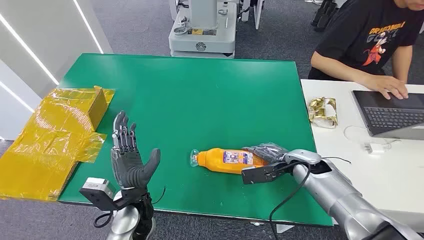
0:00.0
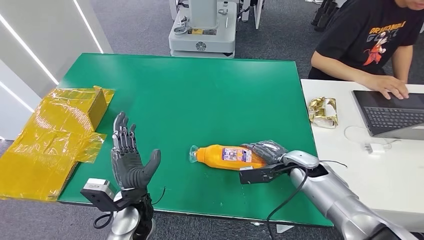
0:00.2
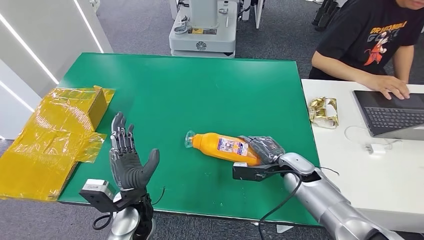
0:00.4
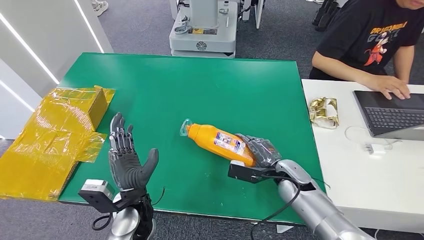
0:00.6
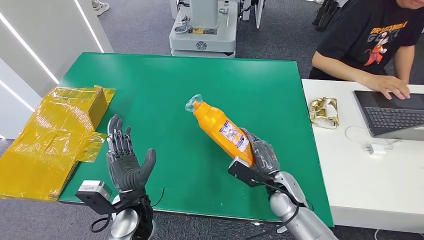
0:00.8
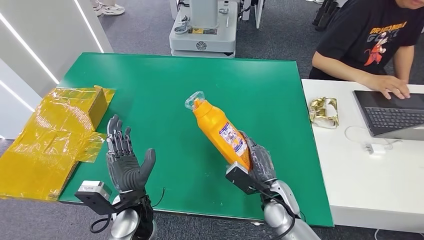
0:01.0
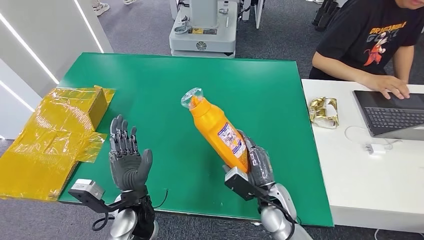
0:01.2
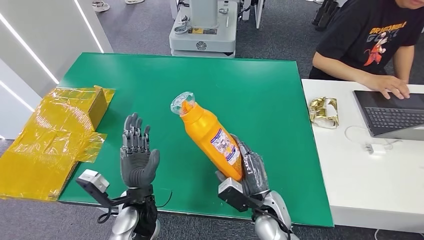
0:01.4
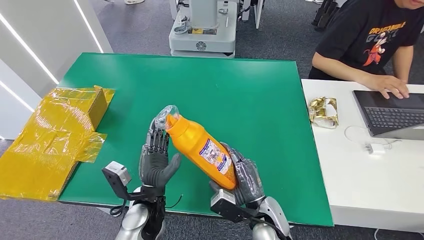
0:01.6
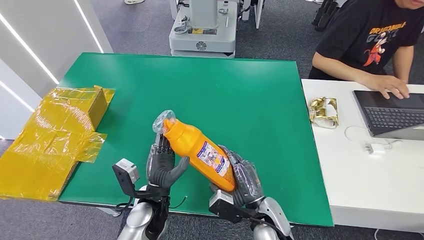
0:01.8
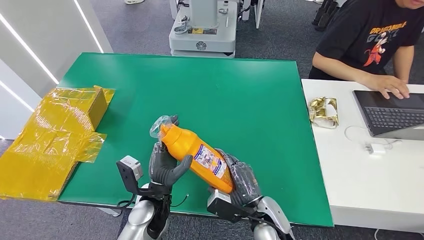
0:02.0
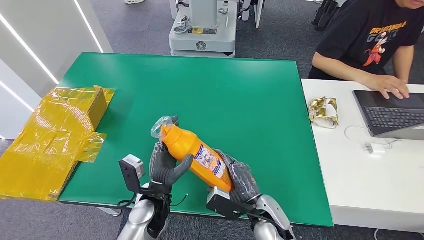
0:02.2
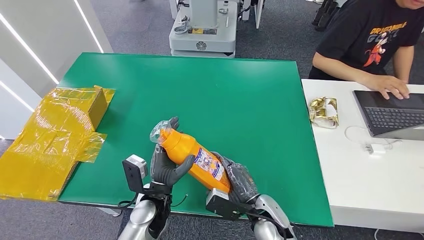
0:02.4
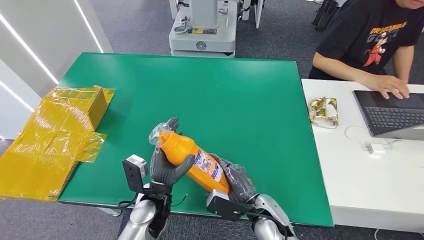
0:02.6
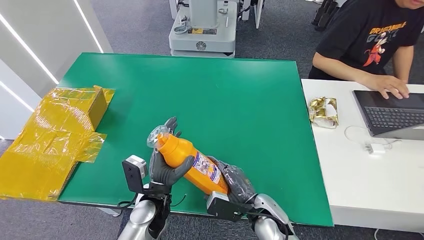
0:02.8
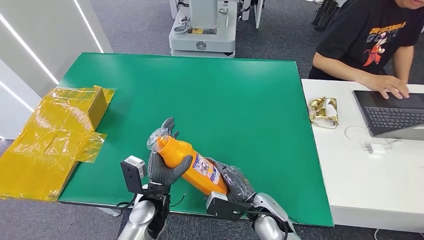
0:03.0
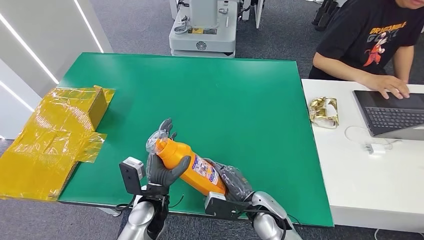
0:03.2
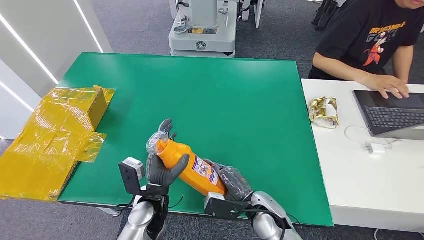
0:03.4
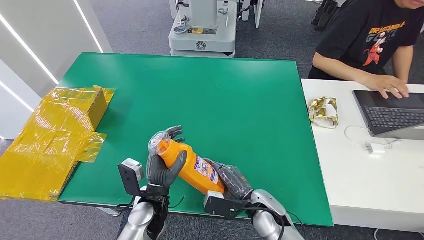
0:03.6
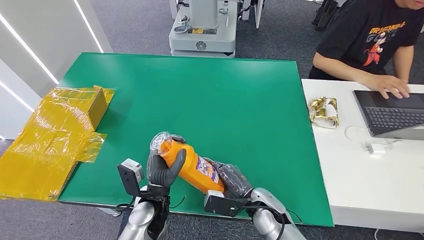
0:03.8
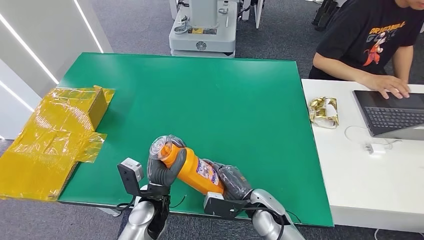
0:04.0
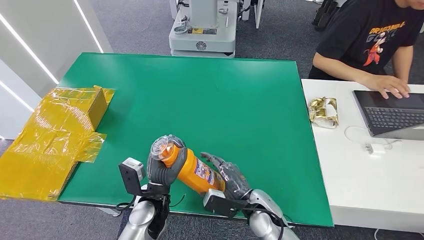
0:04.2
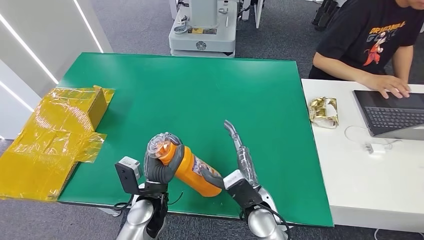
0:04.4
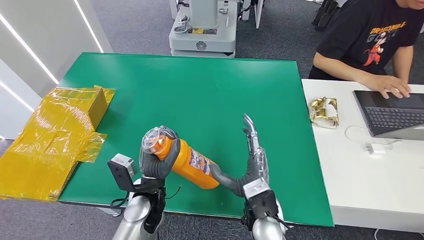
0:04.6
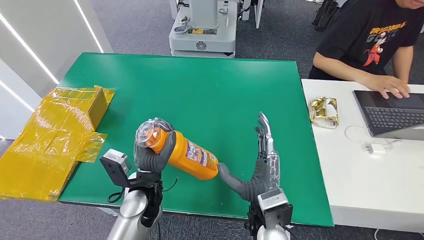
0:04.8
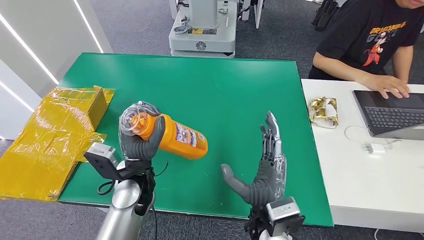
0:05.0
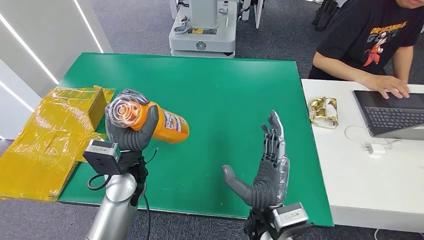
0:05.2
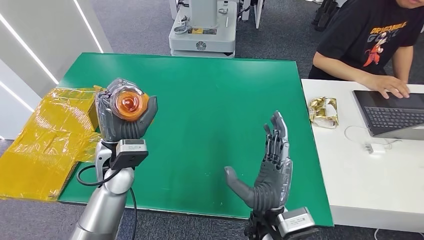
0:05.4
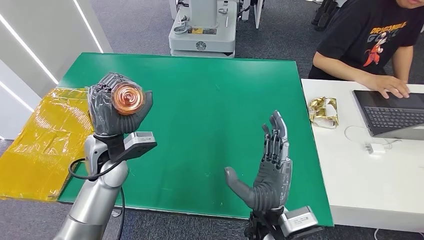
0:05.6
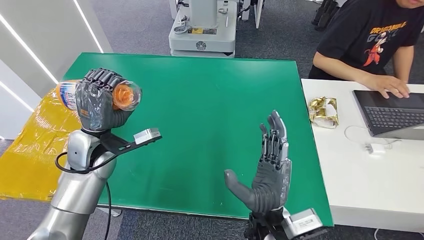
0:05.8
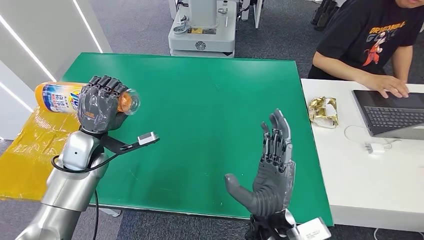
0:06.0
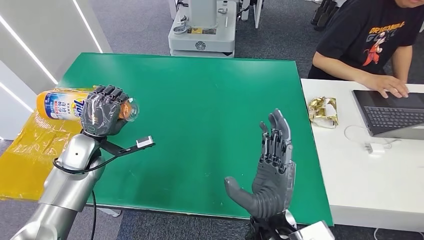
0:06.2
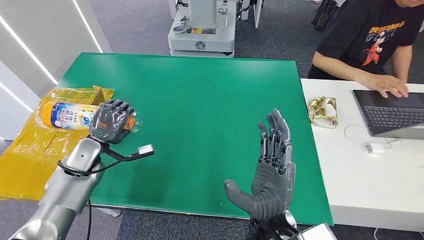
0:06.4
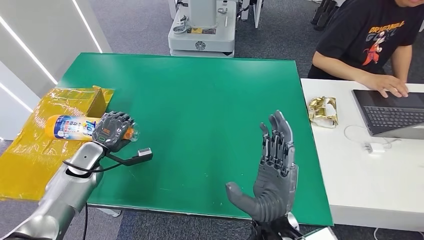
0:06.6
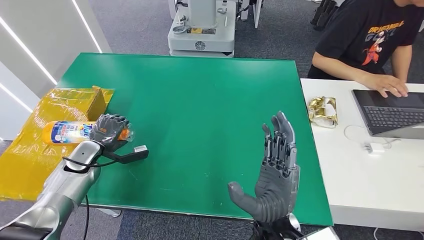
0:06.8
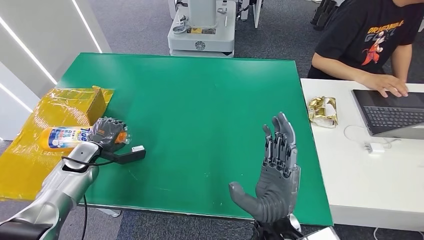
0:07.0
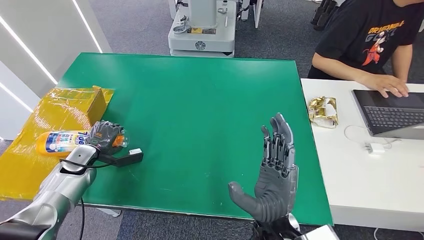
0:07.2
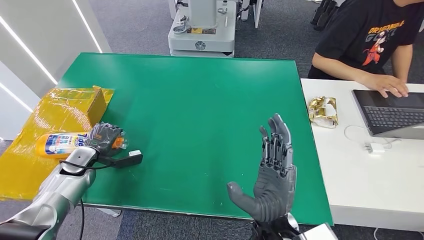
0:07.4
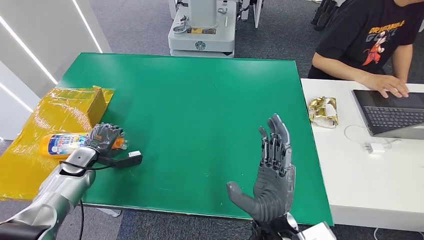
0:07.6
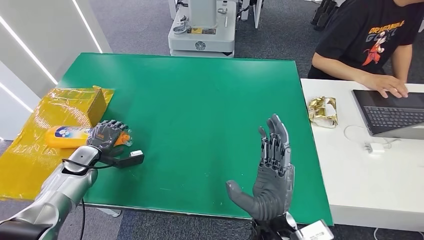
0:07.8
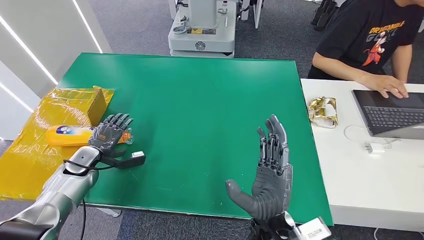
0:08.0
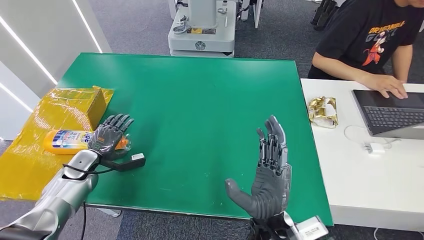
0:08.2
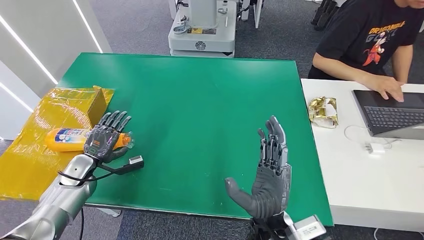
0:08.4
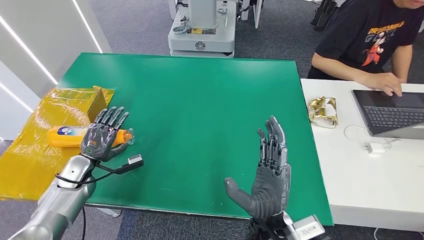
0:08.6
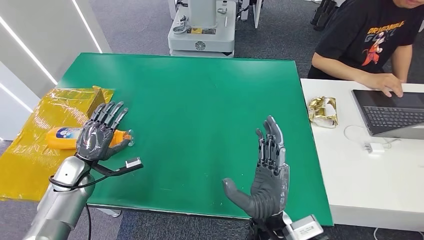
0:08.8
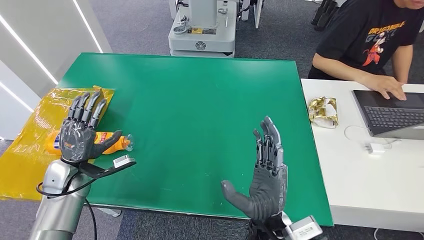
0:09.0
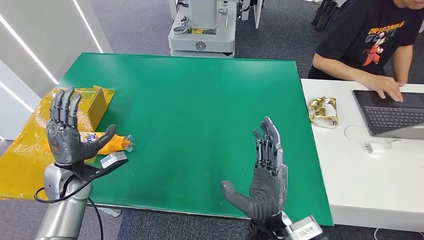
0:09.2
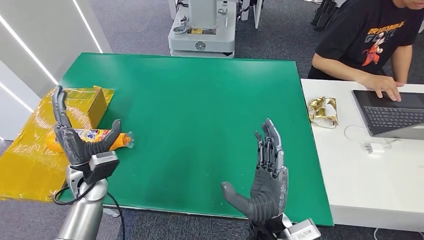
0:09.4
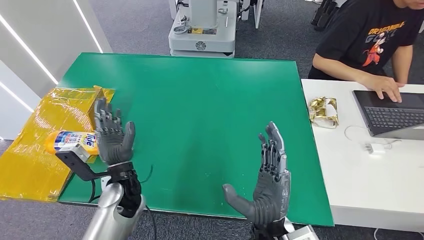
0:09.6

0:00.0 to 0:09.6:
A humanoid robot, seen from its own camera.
Step, 0:00.0 to 0:02.4: Pick up the bottle from the table.
Step, 0:02.6 to 0:09.6: Turn the bottle to the front side.
0:03.2 to 0:04.8: The left hand shifts by some 5 cm; the right hand shifts approximately 10 cm upward.
0:04.8 to 0:06.4: The left hand is displaced to the left and forward by about 20 cm.
0:06.4 to 0:08.0: The left hand shifts some 10 cm downward and to the left.
0:08.0 to 0:09.6: The left hand shifts roughly 20 cm to the right.
